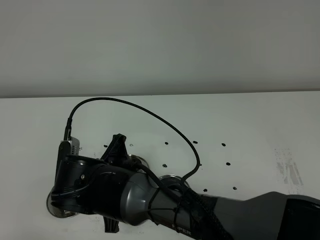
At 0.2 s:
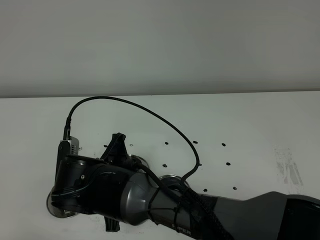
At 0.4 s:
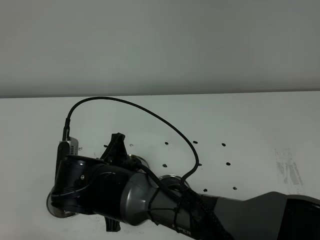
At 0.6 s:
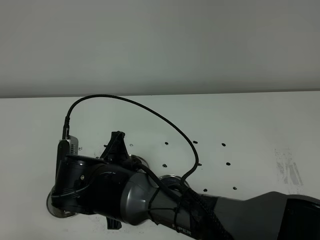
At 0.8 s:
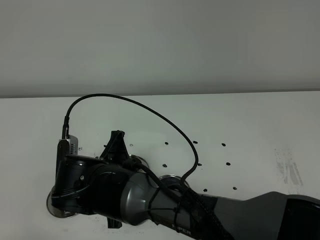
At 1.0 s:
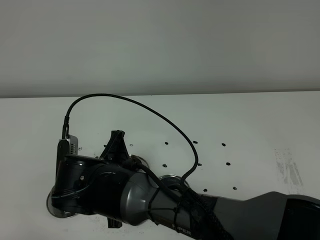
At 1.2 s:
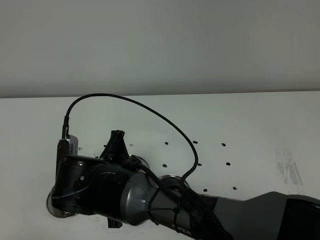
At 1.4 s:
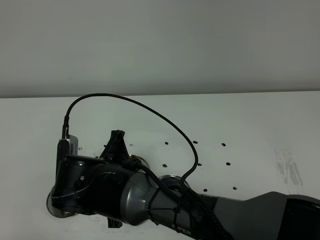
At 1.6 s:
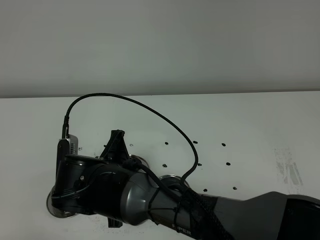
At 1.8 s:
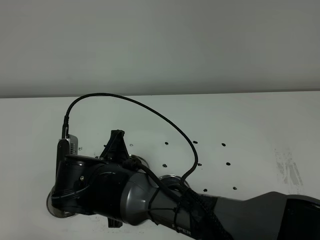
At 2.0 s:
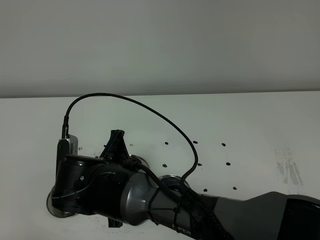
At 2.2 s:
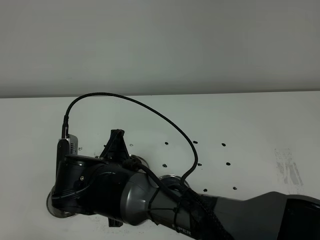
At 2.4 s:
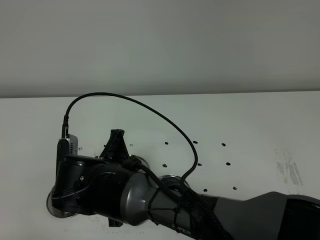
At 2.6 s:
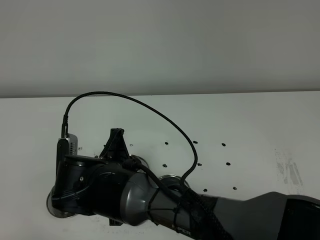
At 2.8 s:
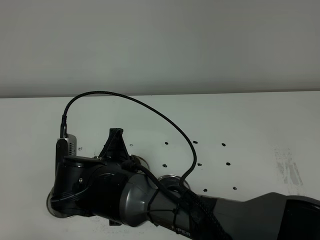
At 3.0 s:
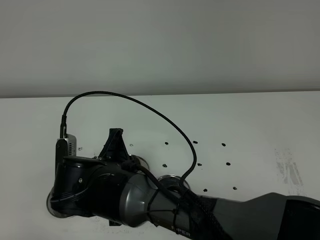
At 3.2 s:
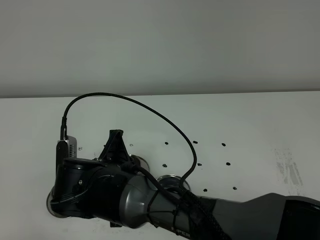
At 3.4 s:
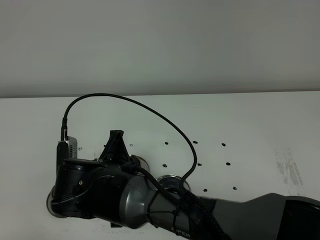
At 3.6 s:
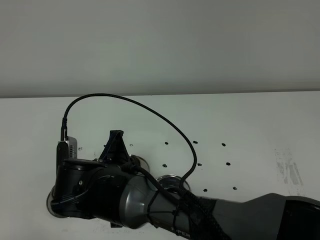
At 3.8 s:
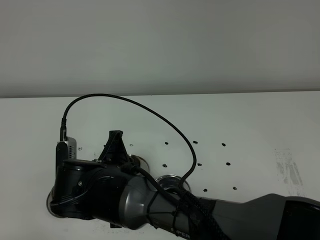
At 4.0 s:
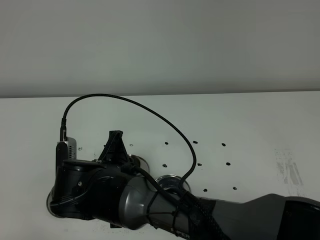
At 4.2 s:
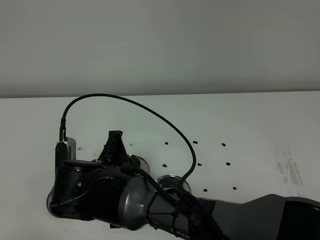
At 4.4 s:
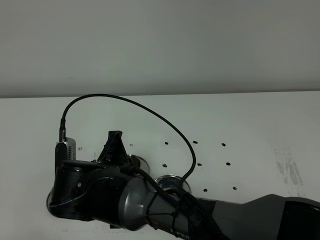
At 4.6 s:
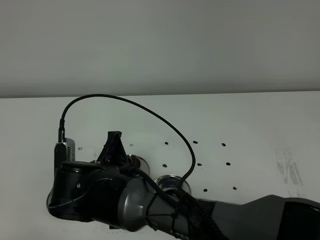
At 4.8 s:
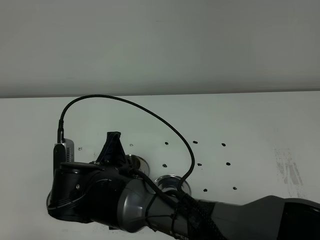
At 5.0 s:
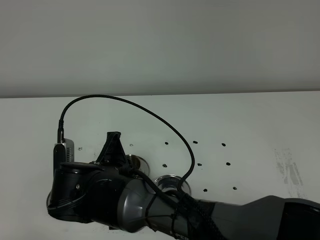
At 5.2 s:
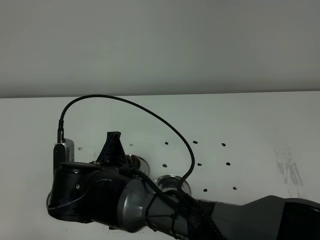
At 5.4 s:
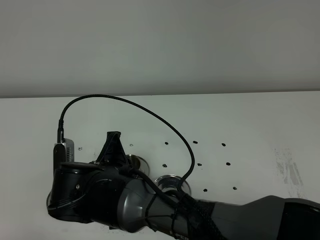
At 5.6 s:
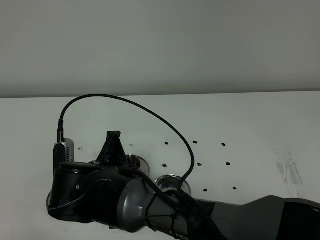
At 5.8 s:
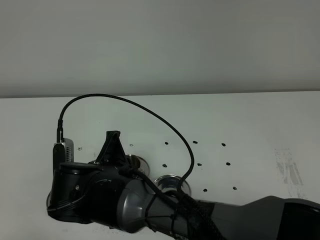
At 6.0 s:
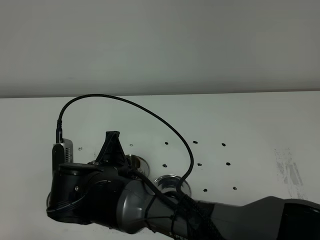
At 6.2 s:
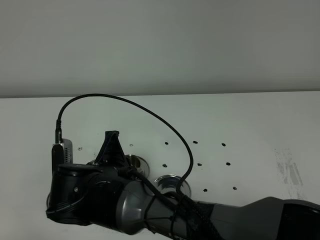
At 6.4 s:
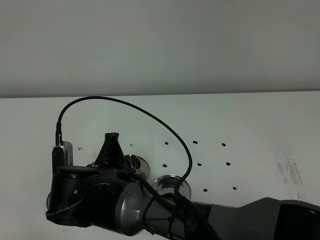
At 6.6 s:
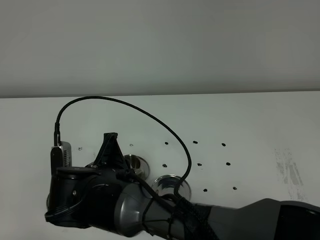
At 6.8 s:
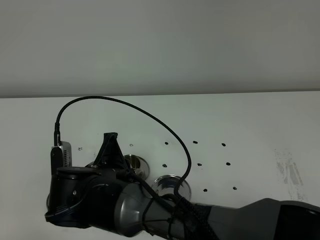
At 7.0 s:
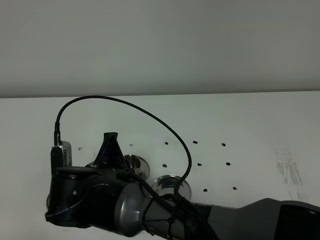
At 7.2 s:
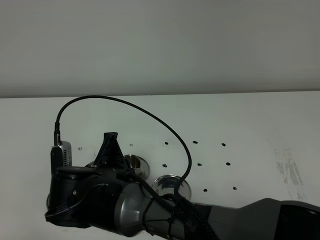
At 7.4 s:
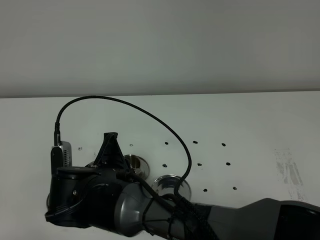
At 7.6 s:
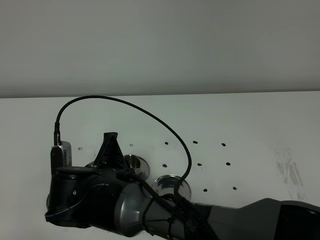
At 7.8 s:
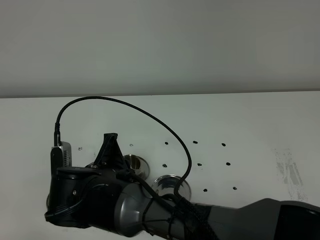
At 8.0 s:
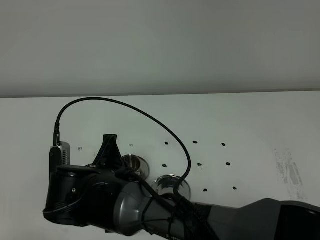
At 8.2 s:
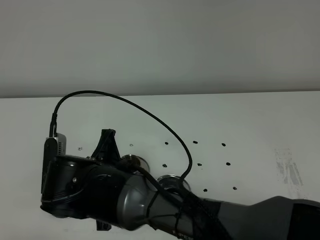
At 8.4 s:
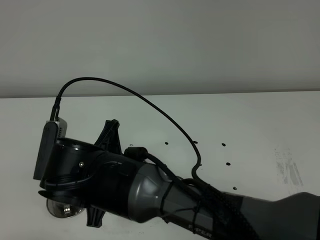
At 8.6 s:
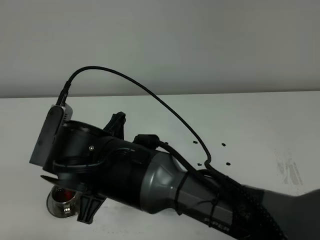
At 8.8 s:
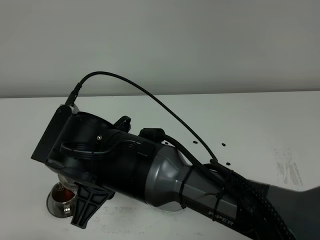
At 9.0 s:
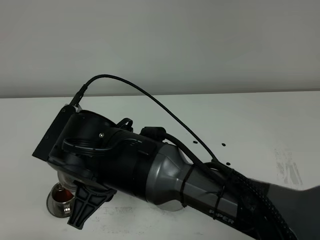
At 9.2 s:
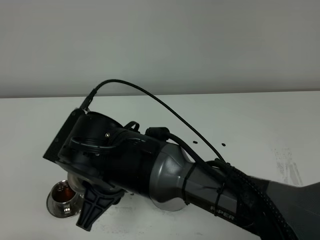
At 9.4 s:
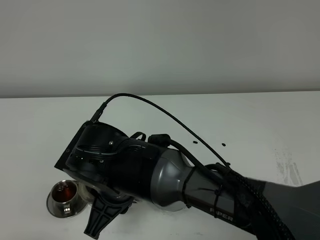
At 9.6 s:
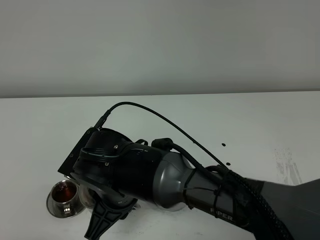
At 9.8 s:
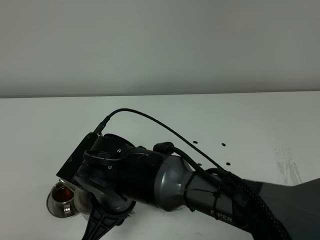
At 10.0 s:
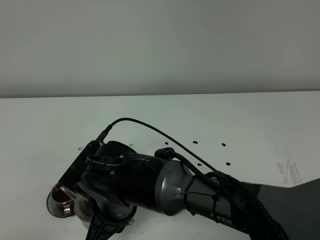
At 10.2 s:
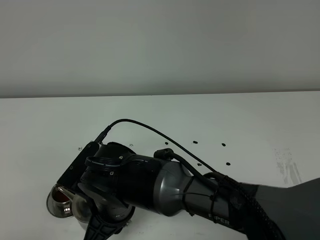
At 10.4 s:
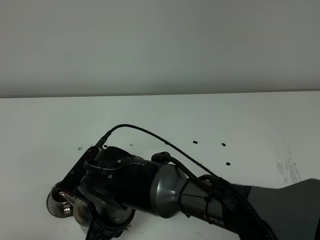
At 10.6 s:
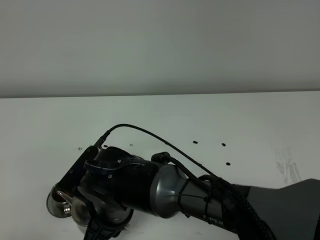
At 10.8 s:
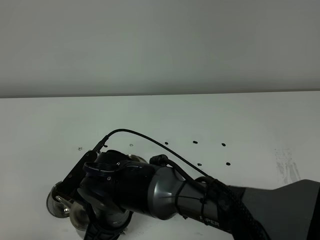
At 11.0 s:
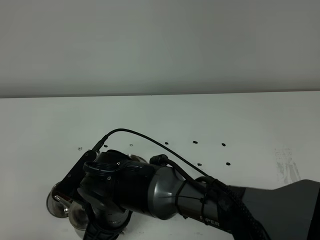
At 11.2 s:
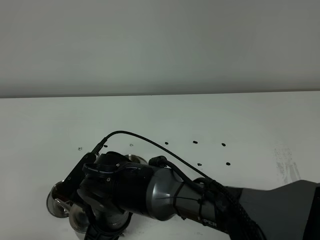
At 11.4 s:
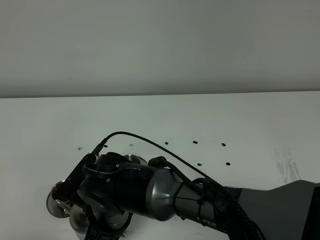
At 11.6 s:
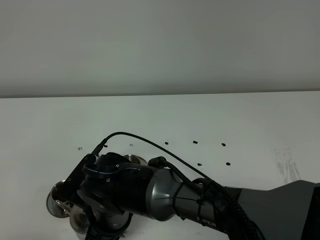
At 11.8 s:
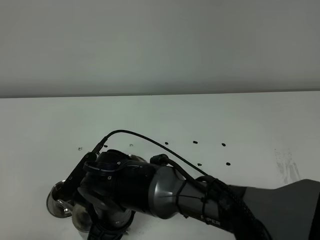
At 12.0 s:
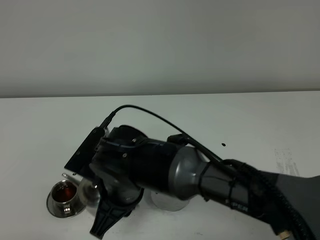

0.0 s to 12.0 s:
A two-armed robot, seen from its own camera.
Task of the whole recording: grasp the stainless steel teapot and pour the tea into the two stainless steel teacups one by one, put the stainless steel teapot back in its original place.
0.0 to 1.6 s: Neither gripper changes place.
1.6 to 6.0 s: Both grippers stay put.
6.0 to 7.6 s: Both grippers stay put.
7.6 to 9.0 s: The right gripper heads upward, covering some 5 cm.
9.0 to 10.4 s: The right gripper goes roughly 10 cm downward.
10.4 to 12.0 s: There are only small adjustments of the grippers.

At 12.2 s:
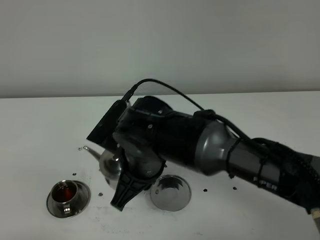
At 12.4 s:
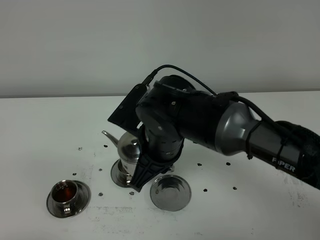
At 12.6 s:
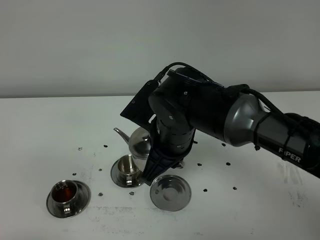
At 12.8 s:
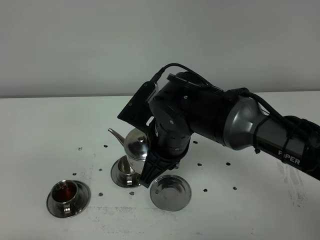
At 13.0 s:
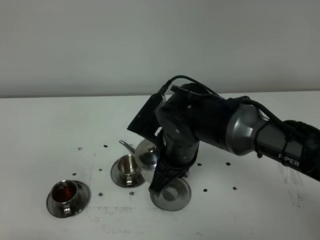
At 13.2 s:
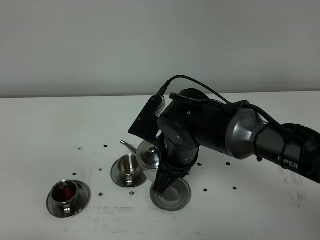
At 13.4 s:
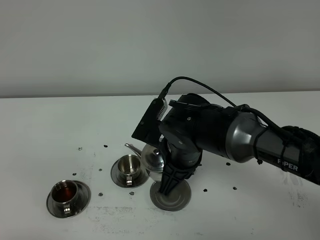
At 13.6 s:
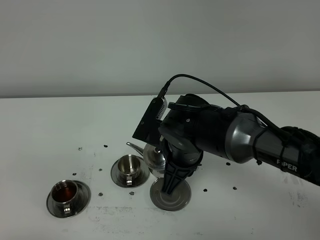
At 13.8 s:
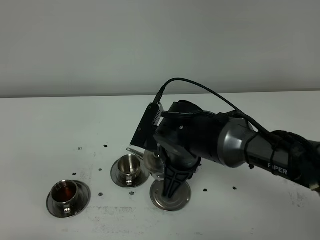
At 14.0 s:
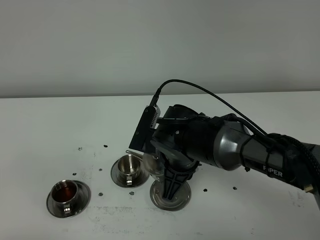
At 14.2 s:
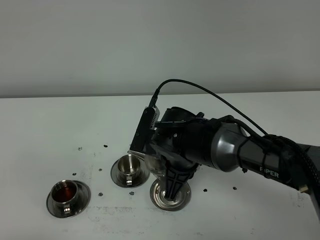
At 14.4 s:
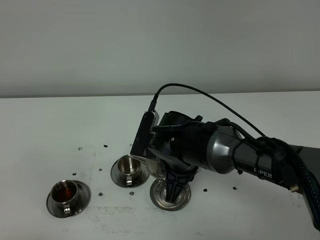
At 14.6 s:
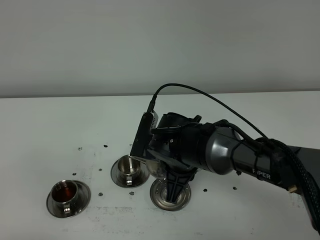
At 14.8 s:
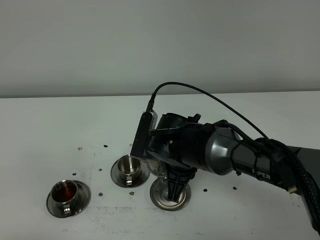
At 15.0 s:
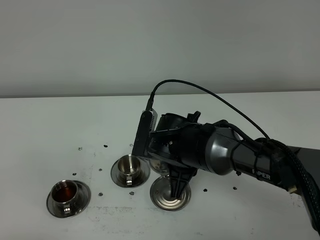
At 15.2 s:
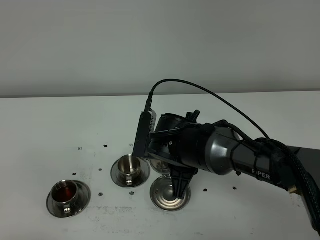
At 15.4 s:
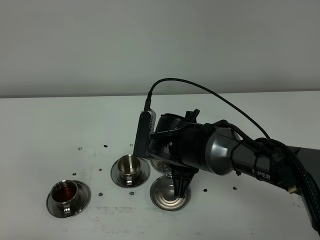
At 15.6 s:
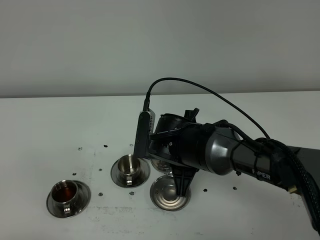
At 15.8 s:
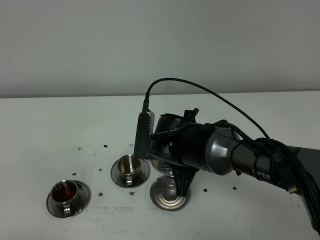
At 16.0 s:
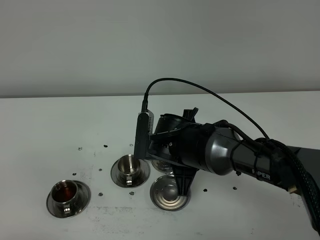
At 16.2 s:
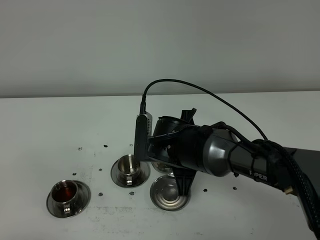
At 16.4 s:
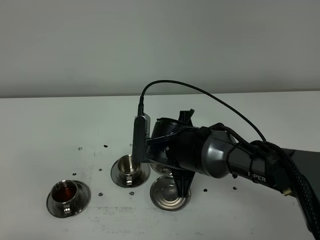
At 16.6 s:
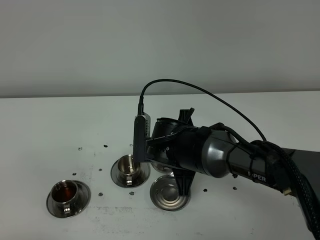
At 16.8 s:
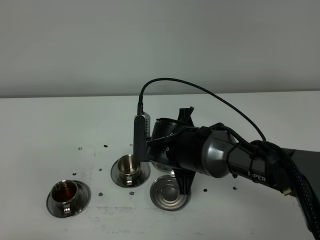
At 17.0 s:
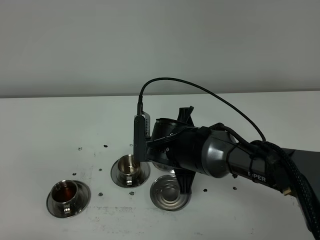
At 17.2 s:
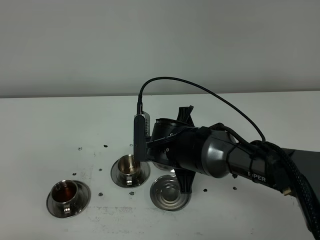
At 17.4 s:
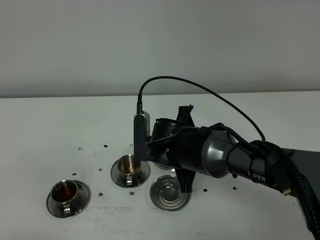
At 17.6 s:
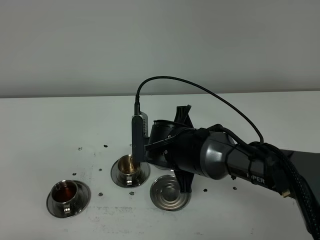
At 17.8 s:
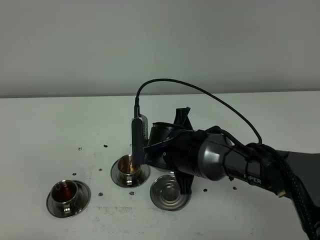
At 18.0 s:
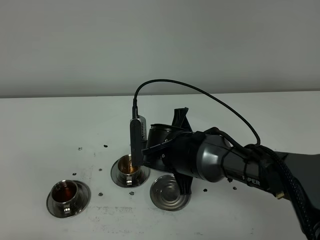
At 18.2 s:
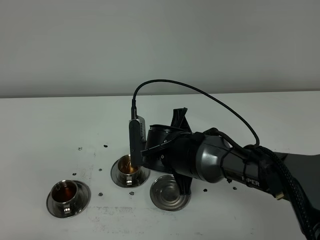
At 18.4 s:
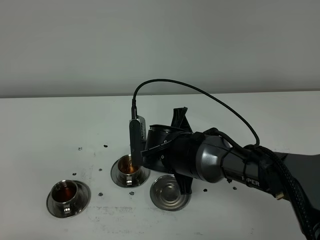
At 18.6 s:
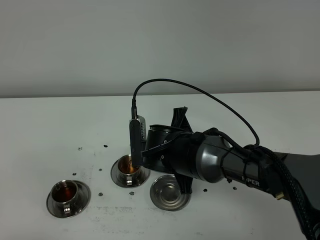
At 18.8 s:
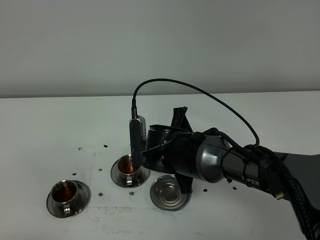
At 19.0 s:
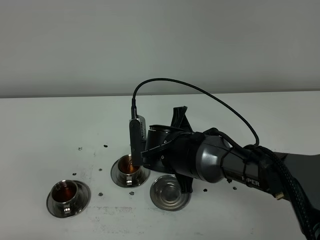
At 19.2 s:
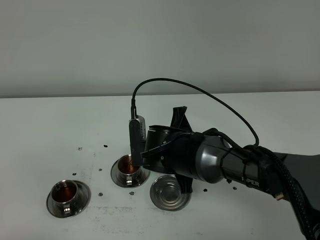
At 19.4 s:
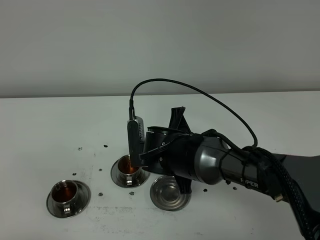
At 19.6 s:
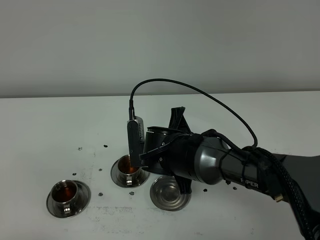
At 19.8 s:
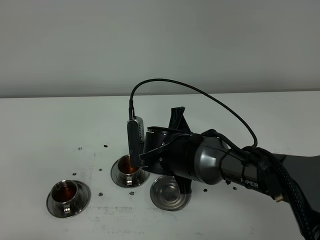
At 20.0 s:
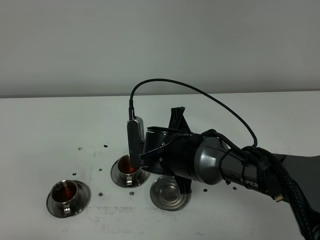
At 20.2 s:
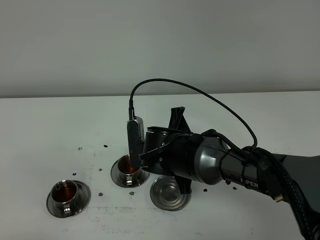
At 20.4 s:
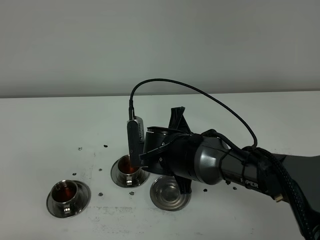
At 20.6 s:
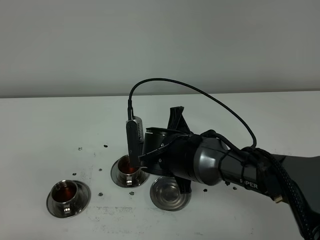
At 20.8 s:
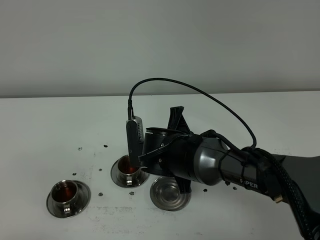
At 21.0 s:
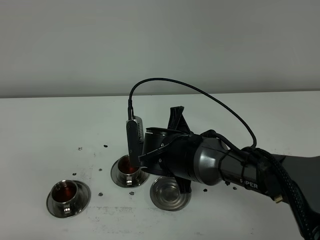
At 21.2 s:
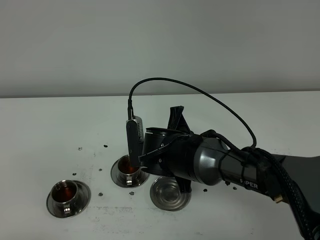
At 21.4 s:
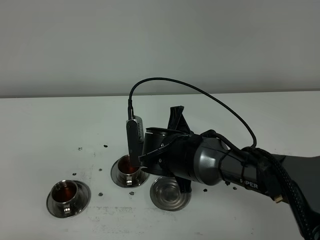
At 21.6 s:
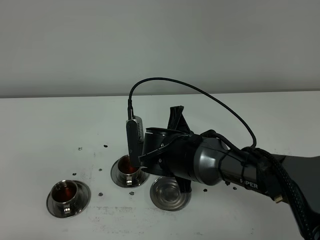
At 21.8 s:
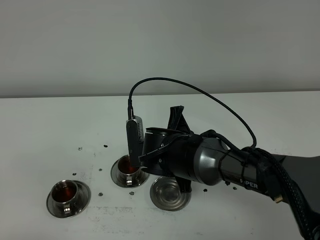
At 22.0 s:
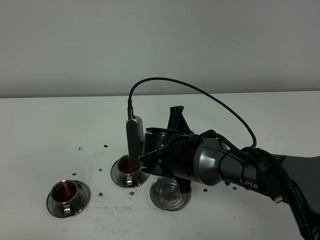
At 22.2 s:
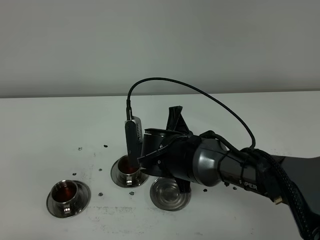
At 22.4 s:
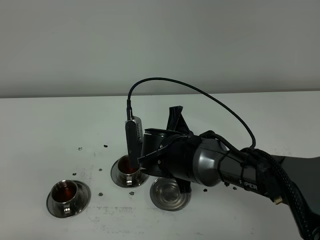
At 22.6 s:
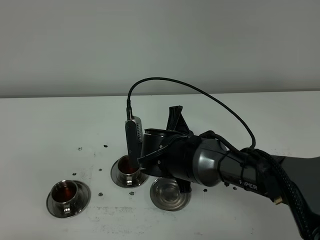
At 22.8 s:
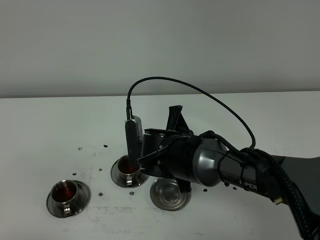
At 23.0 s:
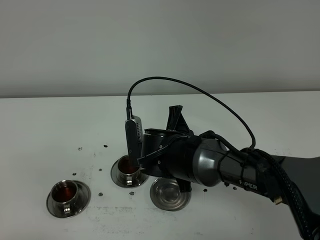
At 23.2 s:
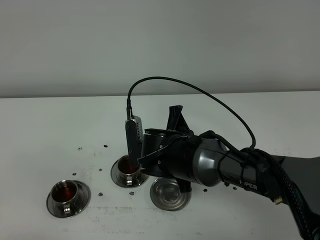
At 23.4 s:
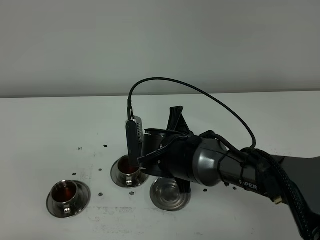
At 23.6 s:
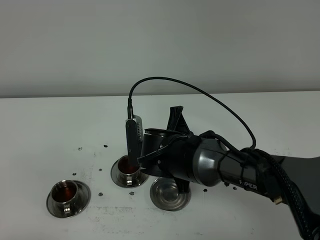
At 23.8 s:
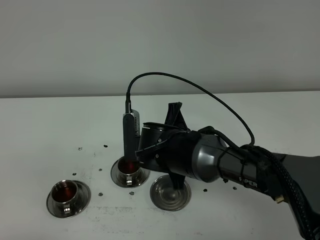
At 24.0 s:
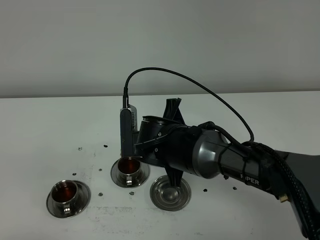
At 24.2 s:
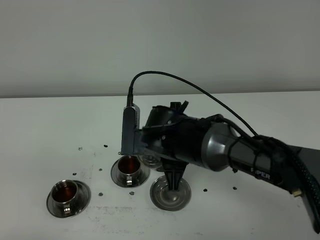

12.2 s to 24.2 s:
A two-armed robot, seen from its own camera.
Task of the whole recording: grasp the stainless steel teapot and pour the tea into the two stainless steel teacups one by one, put the stainless steel teapot back in its original place.
Step, 12.2 to 24.2 s: Pour tea into the teacup with the right gripper.
12.2 to 13.8 s: The right gripper travels to the right by approximately 5 cm.
13.8 to 15.2 s: There are only small adjustments of the grippers.
15.2 to 18.2 s: The grippers move only a little.
18.2 to 22.6 s: Both grippers stay about where they are.
22.6 to 24.2 s: The grippers stay close to where they were, moving slightly.
